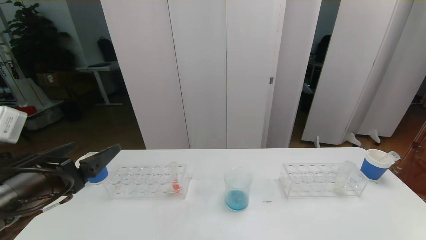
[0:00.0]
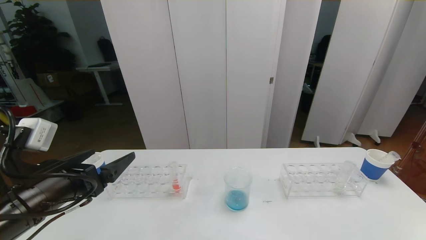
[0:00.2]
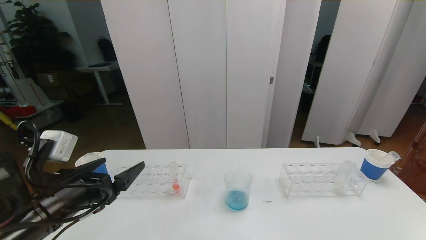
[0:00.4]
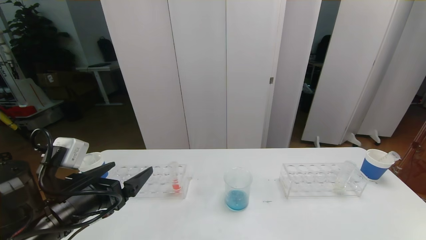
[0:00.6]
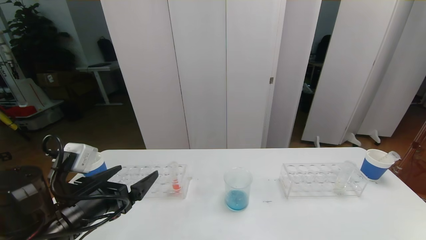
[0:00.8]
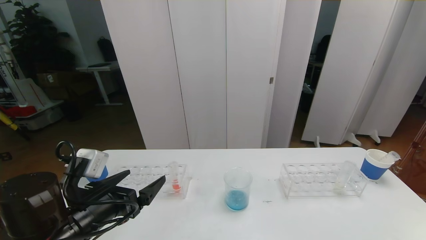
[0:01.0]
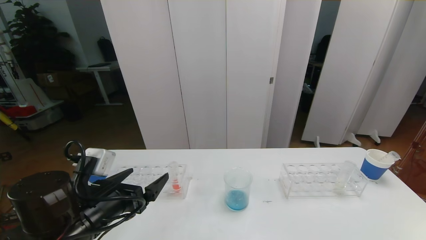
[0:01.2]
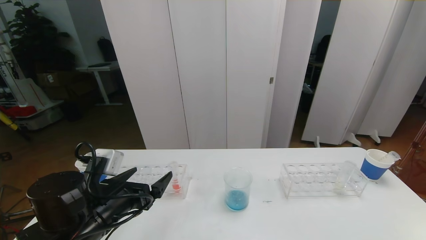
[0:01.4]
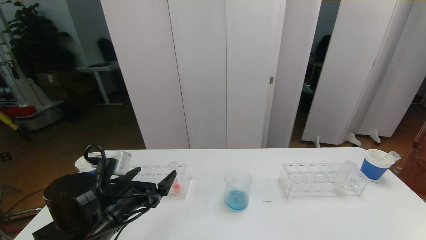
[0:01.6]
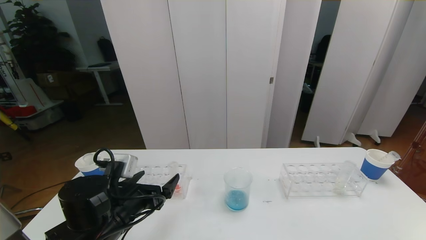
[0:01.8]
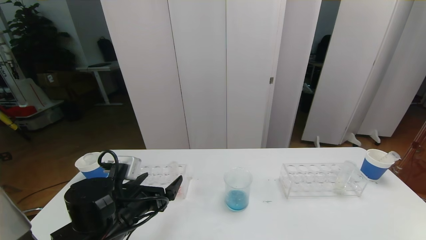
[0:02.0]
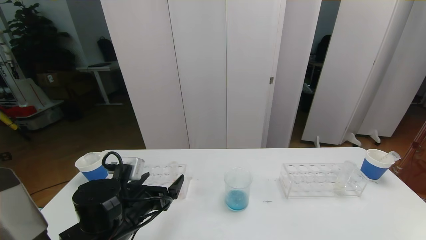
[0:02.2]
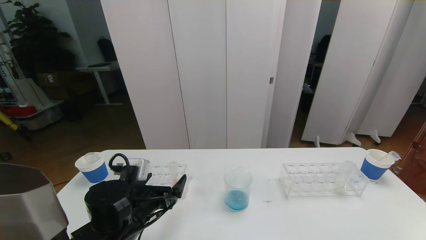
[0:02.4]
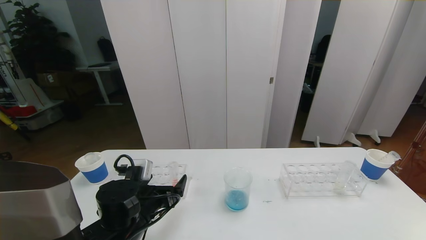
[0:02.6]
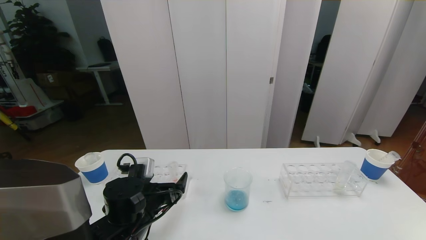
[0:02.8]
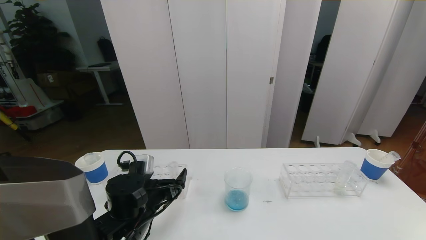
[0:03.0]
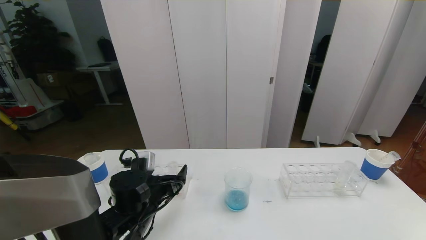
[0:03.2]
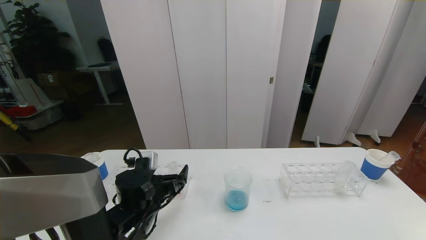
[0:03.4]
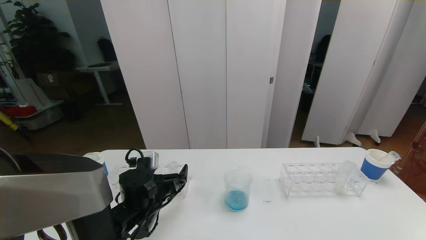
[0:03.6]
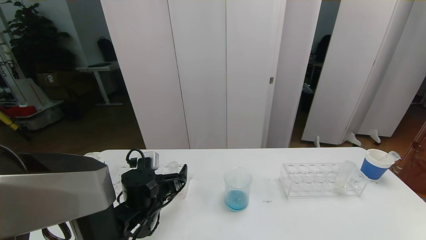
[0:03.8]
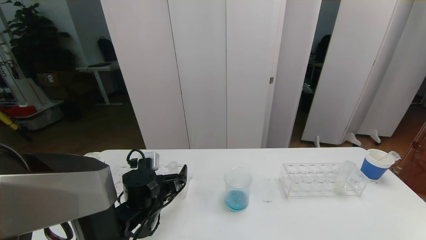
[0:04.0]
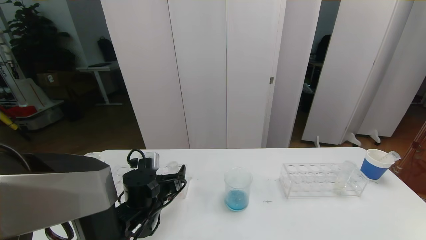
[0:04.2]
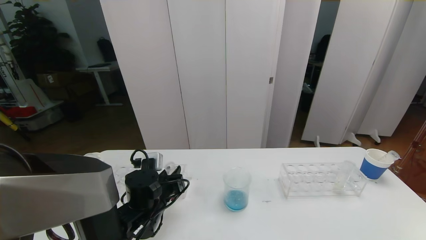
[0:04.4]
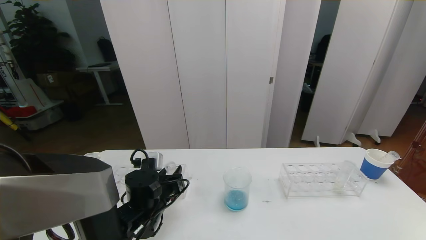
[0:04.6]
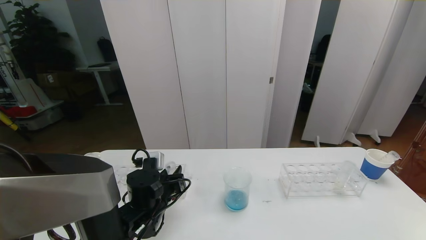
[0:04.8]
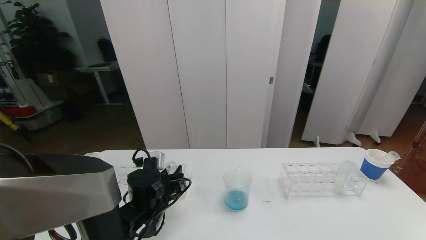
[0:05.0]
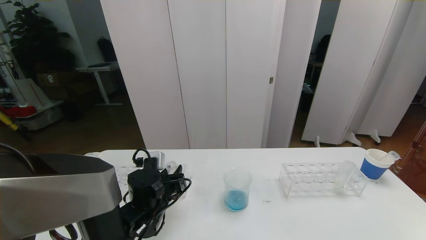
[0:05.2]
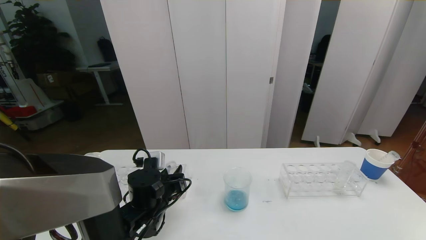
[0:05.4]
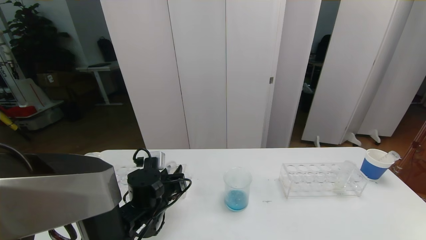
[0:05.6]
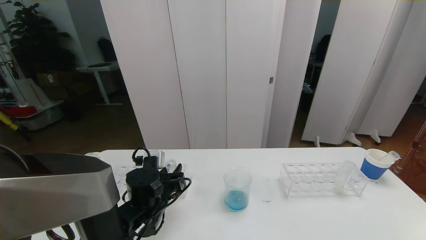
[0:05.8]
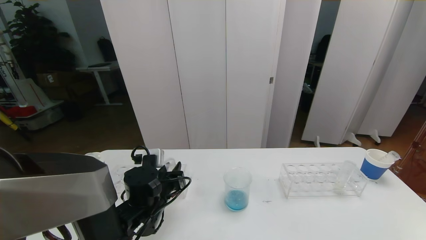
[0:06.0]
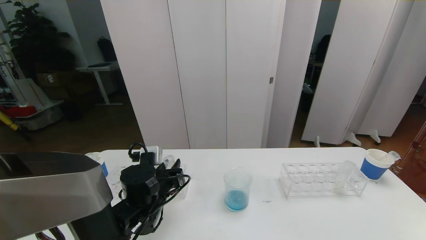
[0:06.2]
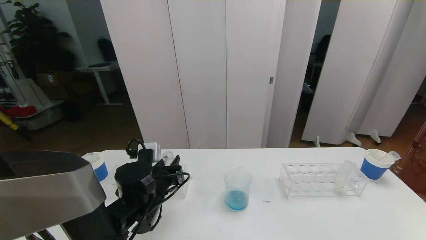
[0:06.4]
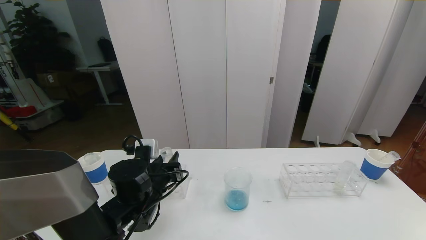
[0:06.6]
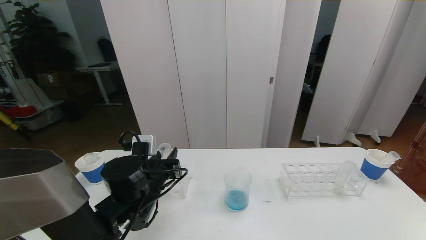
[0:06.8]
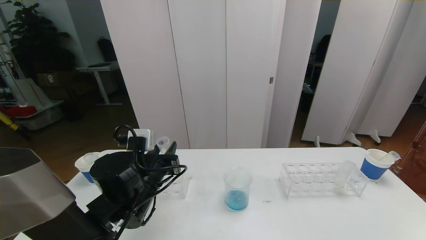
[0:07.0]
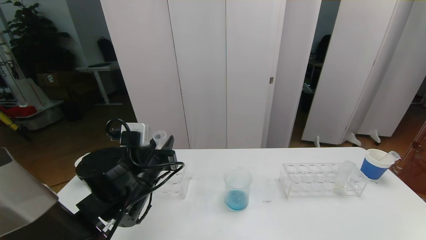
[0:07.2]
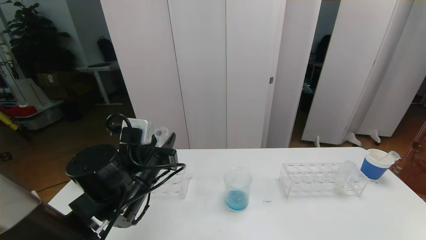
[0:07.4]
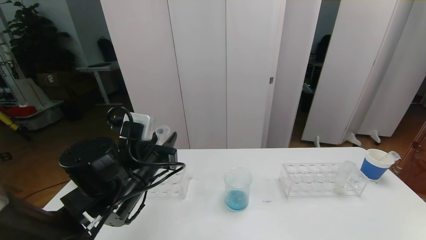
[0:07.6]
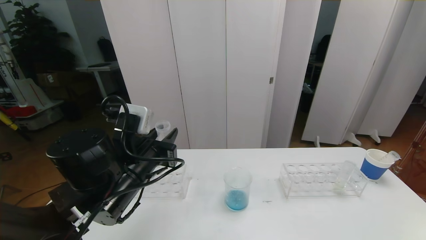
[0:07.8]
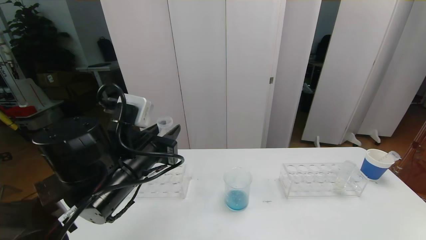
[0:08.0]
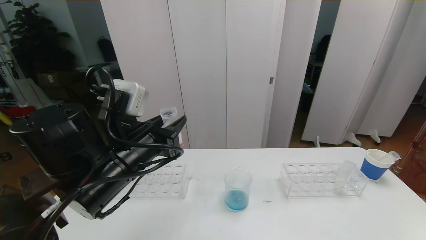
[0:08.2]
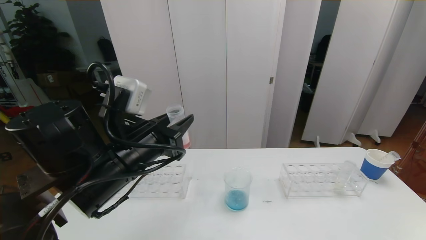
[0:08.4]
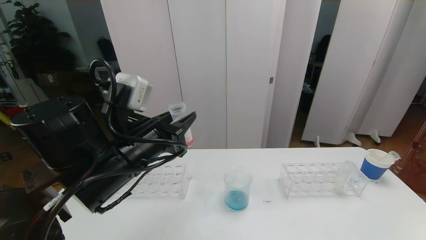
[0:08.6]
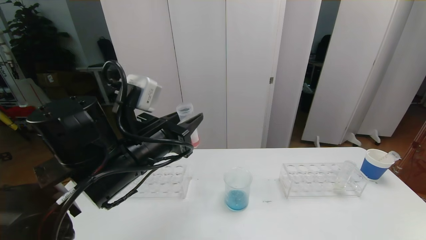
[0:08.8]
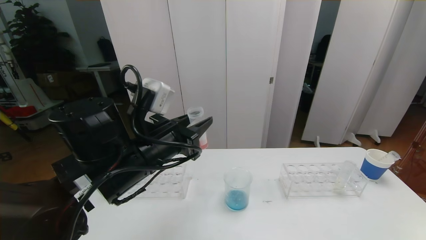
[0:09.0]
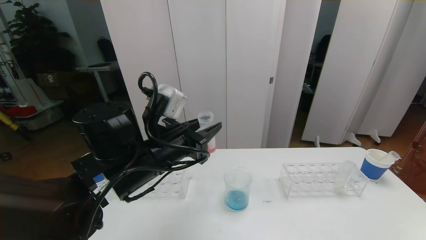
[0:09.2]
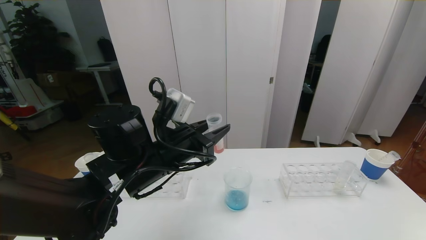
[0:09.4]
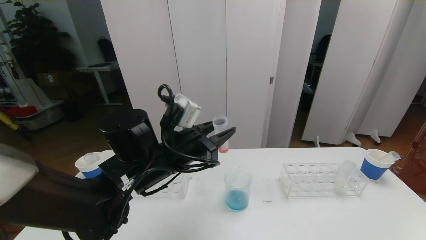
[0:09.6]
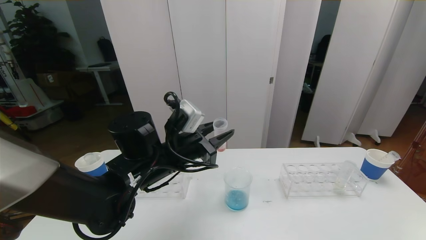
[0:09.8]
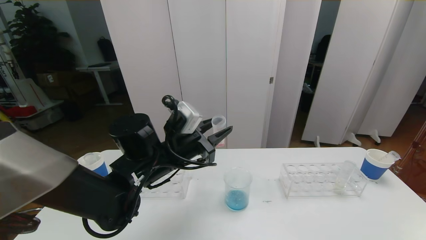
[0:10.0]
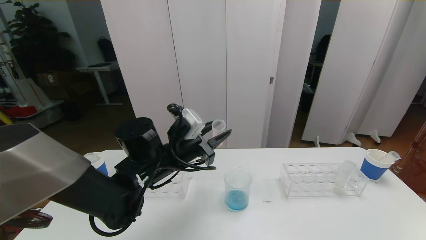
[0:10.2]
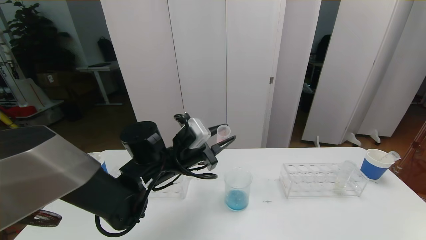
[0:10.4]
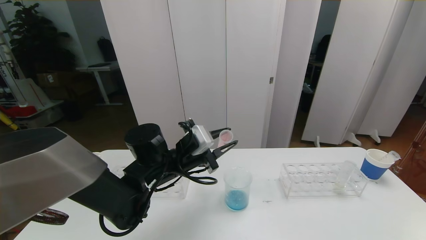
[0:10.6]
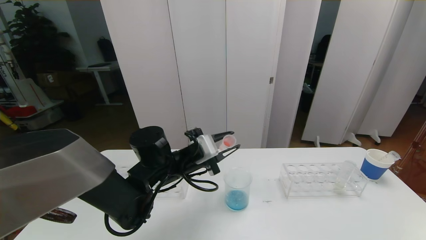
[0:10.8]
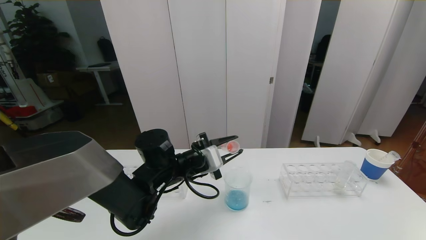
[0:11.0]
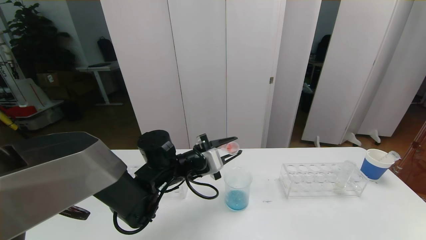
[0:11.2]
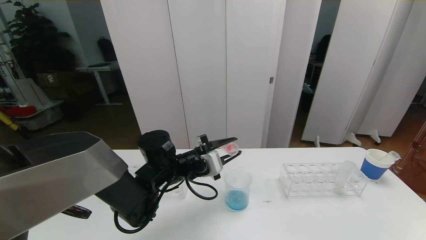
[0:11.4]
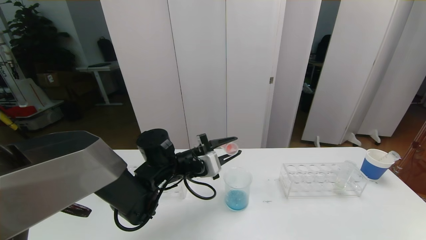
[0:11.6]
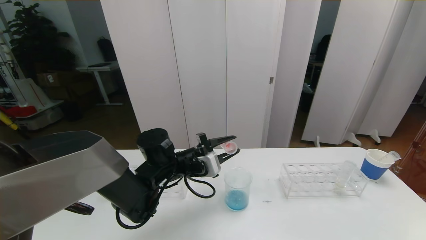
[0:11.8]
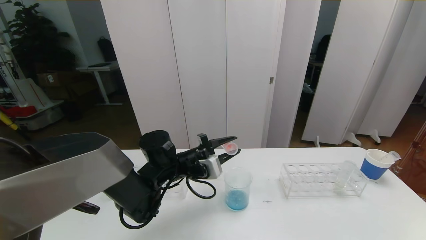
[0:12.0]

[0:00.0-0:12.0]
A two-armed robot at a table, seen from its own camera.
Task of the whole recording: pick up the test tube with red pigment the test tube with blue pigment and the test tube with white pigment by grippers and pour them into the beaker.
Step, 0:00.0 to 0:04.4: Grasp the red reagent with the left gripper.
0:00.0 to 0:01.6: The left gripper is displaced downward and to the right by roughly 15 cm.
0:01.6 to 0:03.0: The left gripper ends up roughly 5 cm from where it was.
0:03.0 to 0:04.4: The left gripper closes.
0:04.4 to 0:06.0: Both grippers stay put.
0:06.0 to 0:07.6: The left gripper goes approximately 10 cm upward.
0:07.6 to 0:09.0: The left gripper shifts some 5 cm upward.
0:09.0 to 0:10.4: The left gripper is displaced downward and forward by about 10 cm.

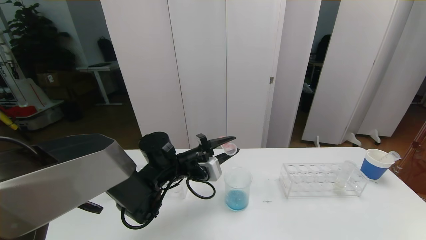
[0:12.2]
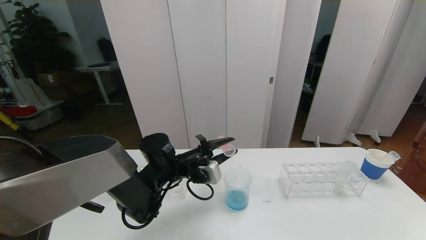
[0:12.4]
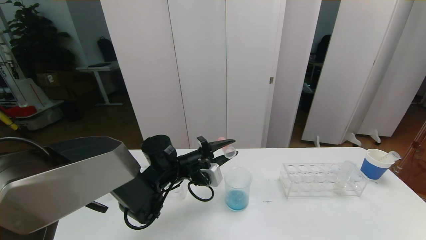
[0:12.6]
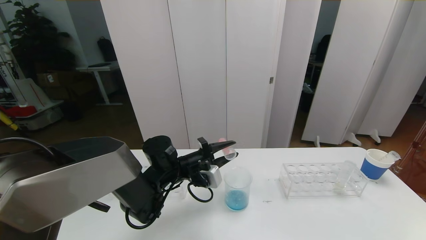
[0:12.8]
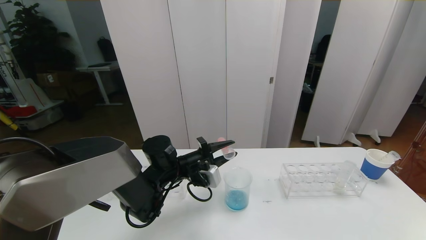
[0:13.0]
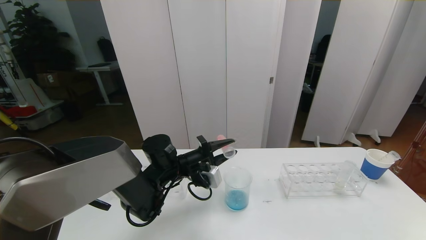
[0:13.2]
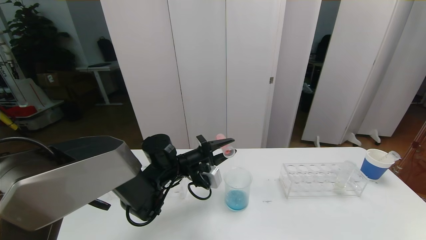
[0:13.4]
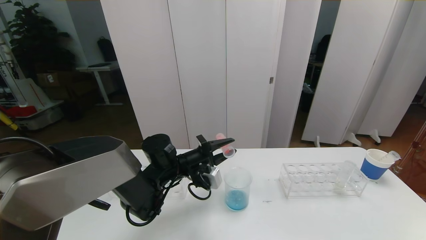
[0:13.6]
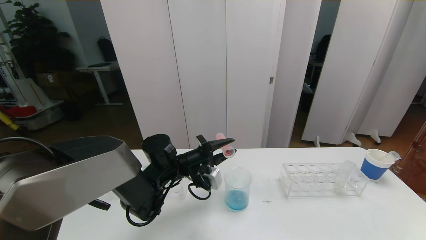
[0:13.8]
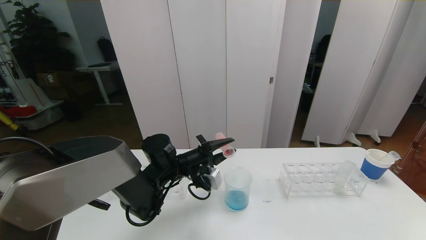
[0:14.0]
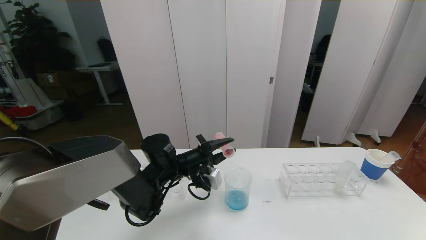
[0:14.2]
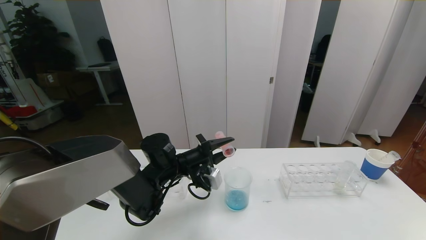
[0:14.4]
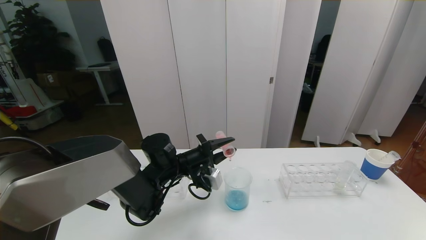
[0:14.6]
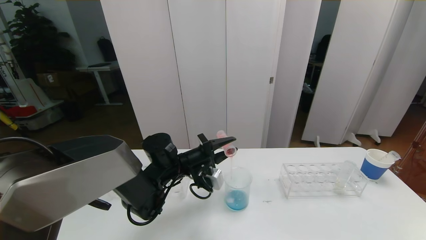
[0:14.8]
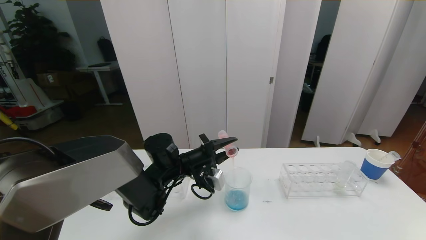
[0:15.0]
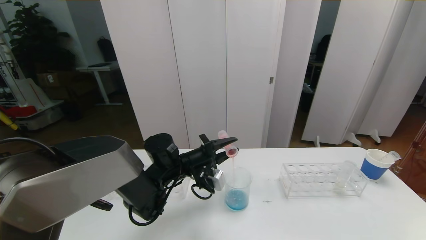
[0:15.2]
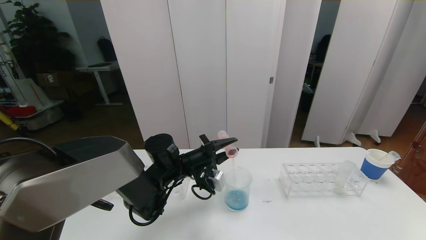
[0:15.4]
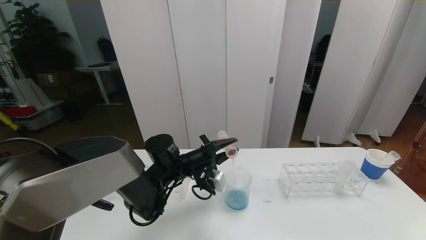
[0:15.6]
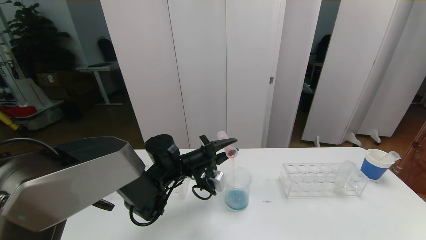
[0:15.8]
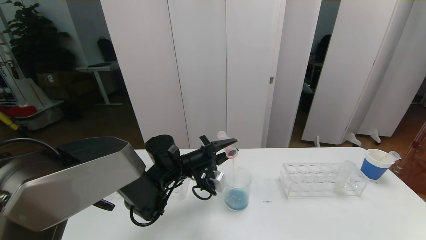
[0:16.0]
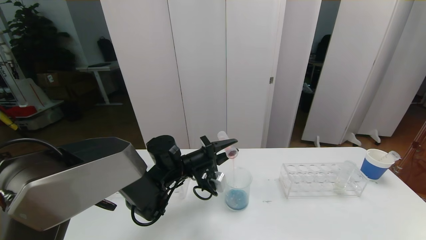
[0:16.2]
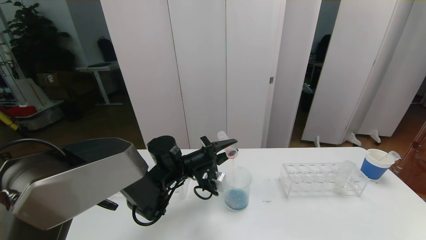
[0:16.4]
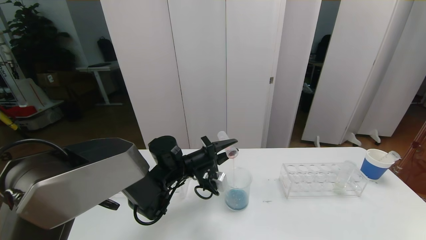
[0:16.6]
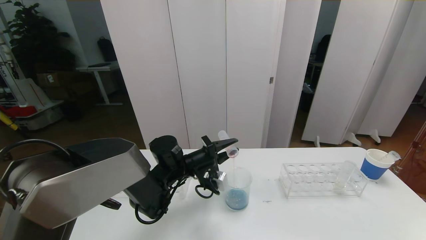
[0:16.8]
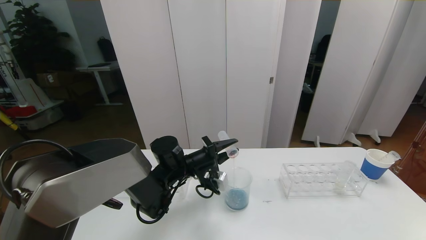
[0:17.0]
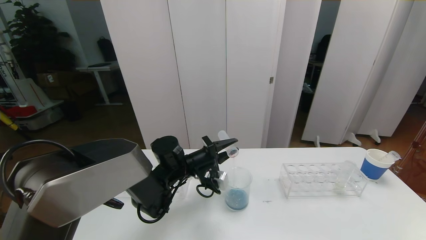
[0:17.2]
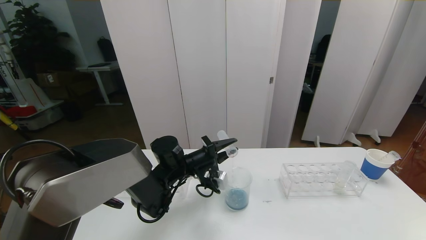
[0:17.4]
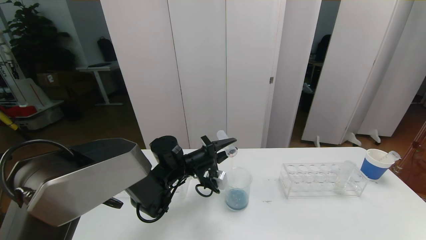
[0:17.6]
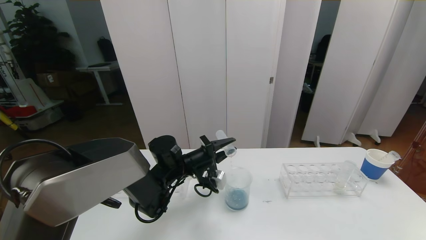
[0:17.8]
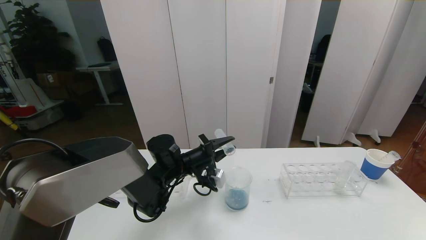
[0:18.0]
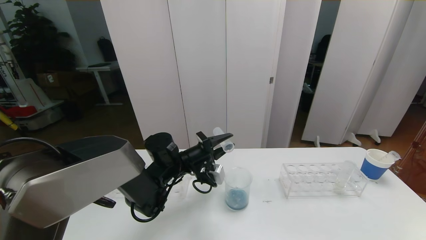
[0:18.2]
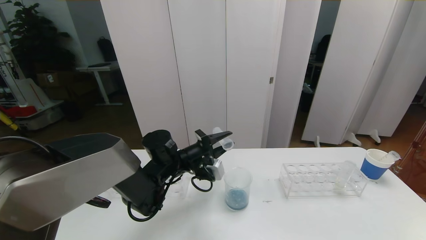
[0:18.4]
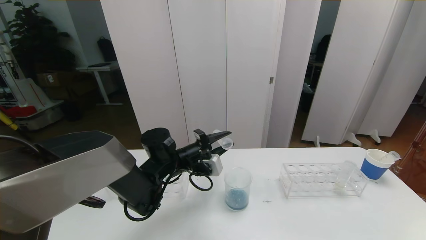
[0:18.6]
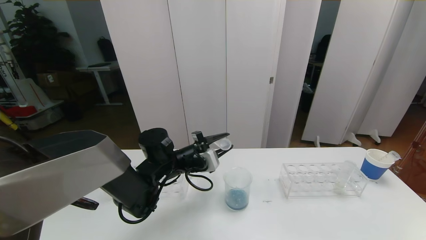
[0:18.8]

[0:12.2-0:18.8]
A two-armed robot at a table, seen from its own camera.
Task of the whole recording: pick up the test tube with red pigment the test tube with blue pigment and the test tube with white pigment by grippers and pour them into the beaker.
Step, 0:12.2 to 0:18.6: Pour the red reagent into the graduated cylinder with the left gripper.
0:12.2 to 0:15.4: The grippers stay close to where they were, moving slightly.
0:15.4 to 0:17.2: The grippers stay close to where they were, moving slightly.
